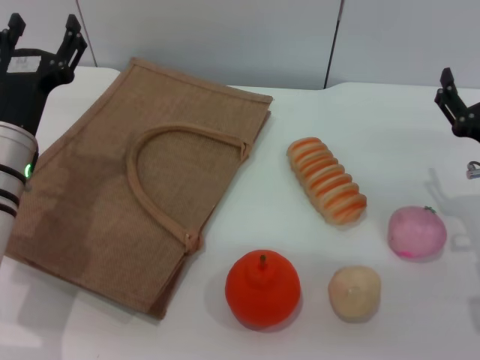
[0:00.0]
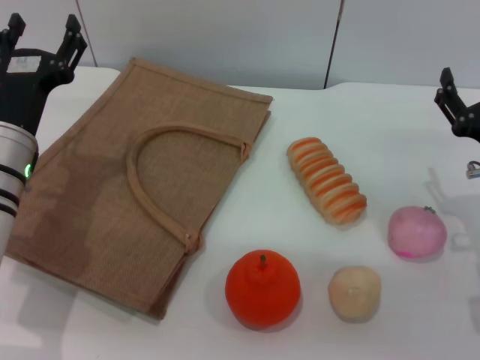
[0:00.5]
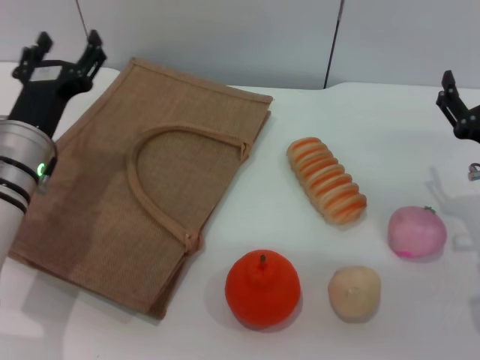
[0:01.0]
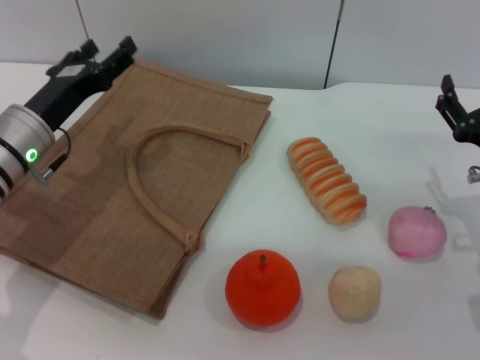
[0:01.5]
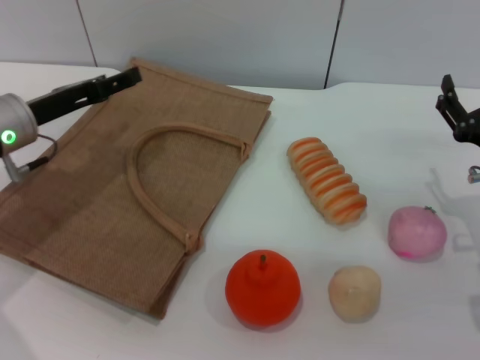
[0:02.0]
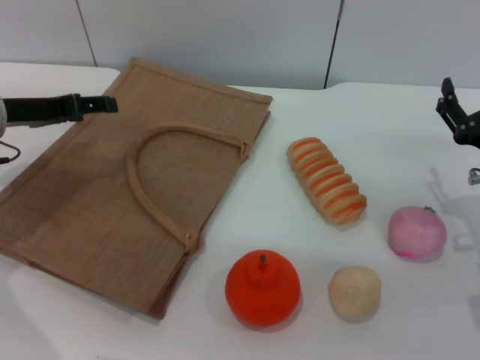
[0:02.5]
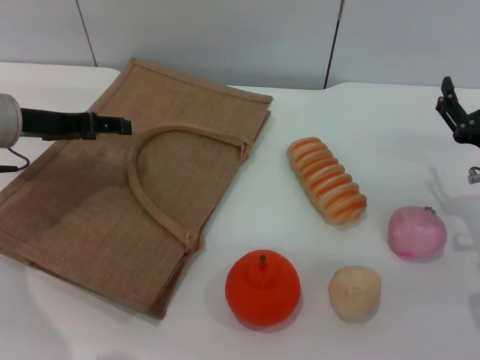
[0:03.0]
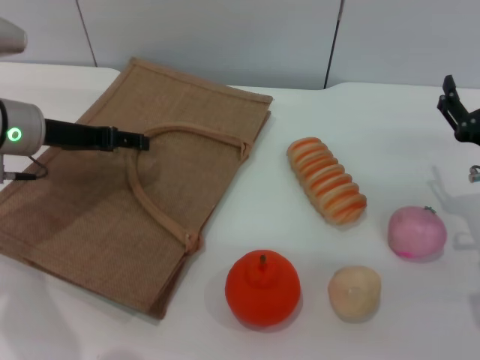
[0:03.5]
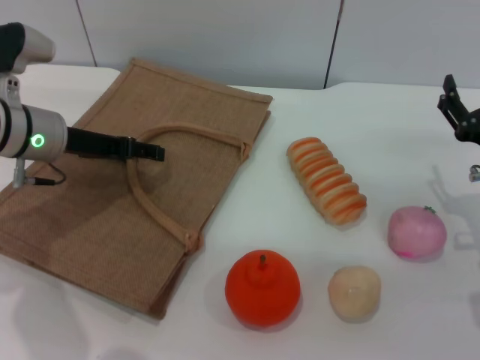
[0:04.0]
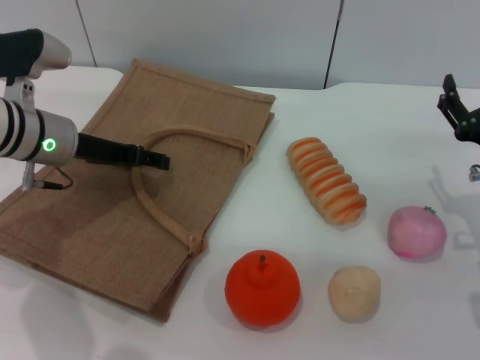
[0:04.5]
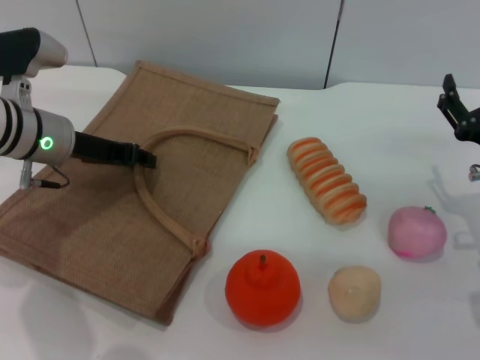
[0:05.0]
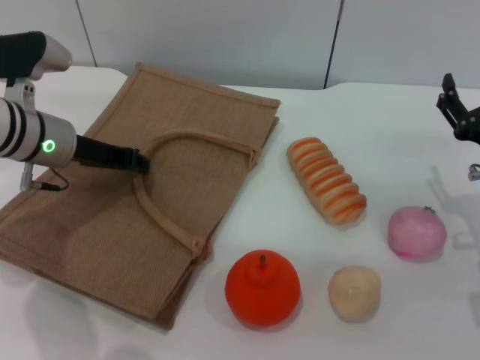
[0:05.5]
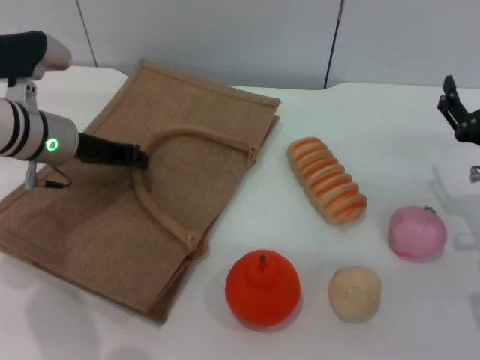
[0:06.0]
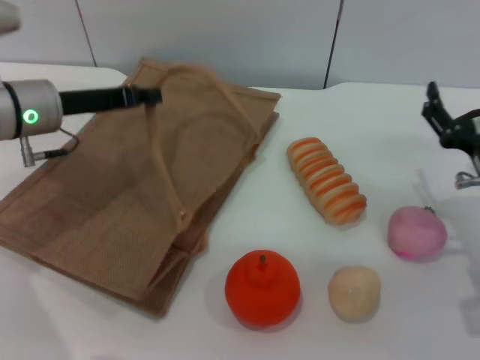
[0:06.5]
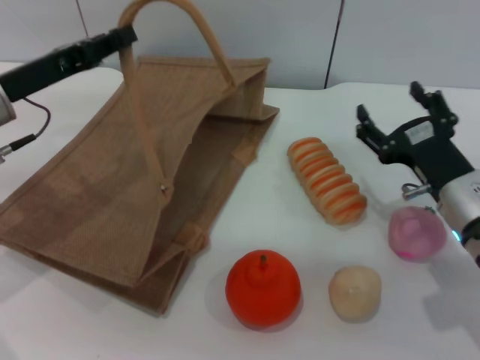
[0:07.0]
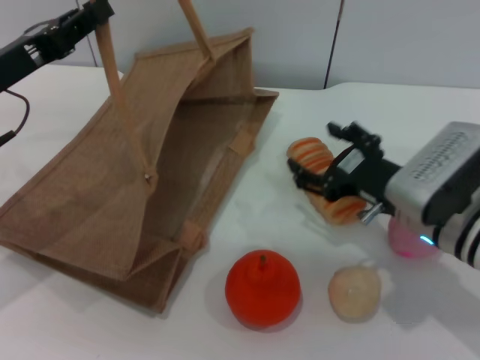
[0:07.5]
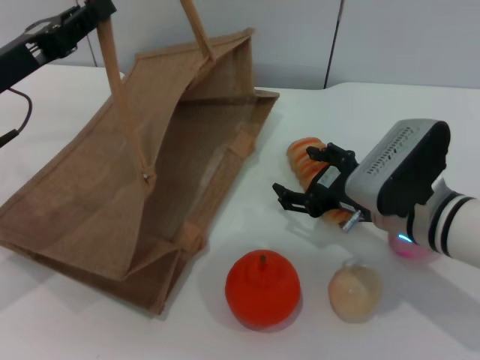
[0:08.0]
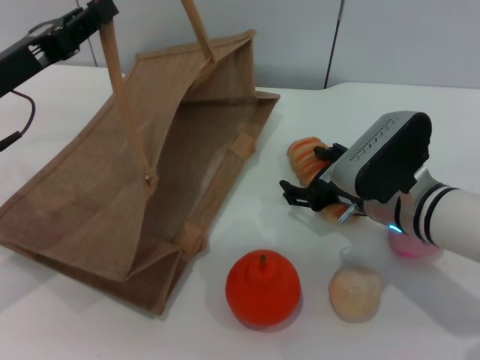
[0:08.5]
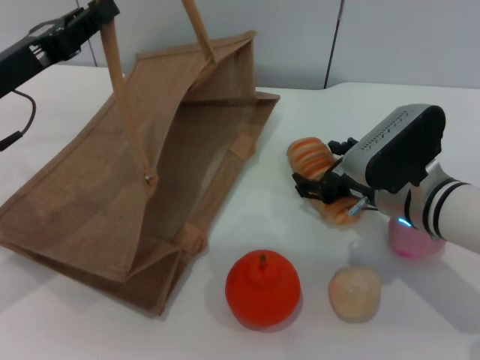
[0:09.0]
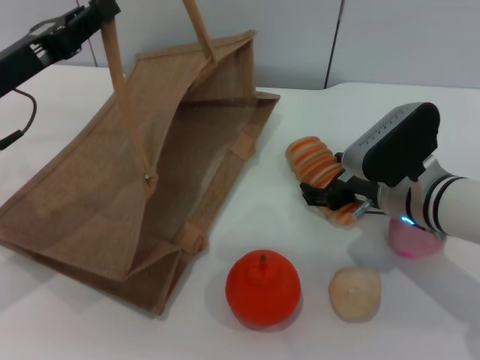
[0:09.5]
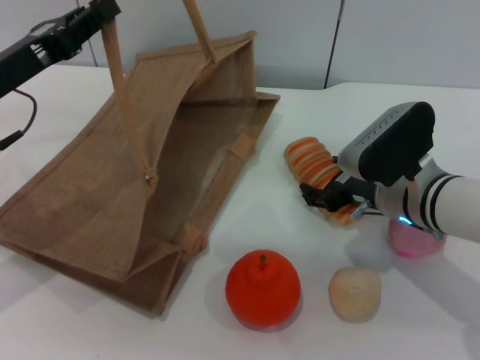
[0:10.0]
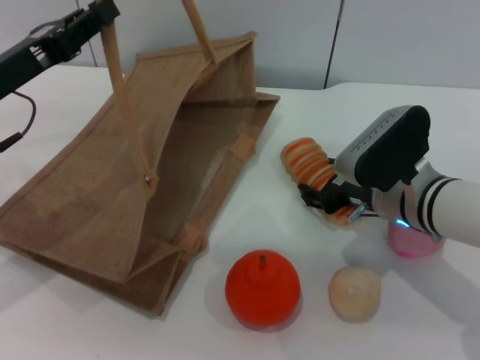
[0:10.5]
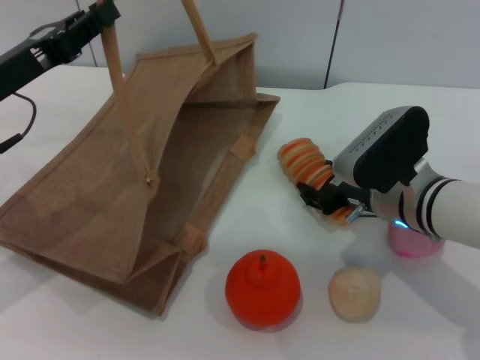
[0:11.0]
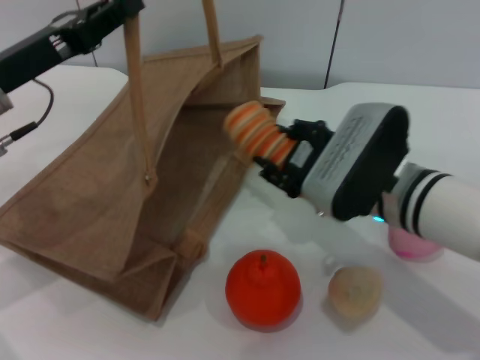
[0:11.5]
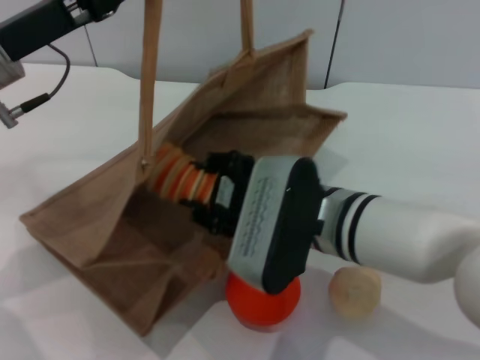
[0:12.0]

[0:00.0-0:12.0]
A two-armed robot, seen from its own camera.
Task of the whole recording: pick up the bread from the table and place it in the brown handbag.
Step, 0:00.0 to 0:06.0: Lift the woven bag with the left gripper to open it.
Step, 0:06.5 to 0:11.0: Pick up the bread with the right gripper.
0:00.0 to 0:02.0: The left gripper shifts by some 5 cm.
0:04.0 to 0:06.0: The left gripper closes its fingers.
0:06.0 to 0:08.0: The left gripper goes about 10 cm backward and upward. The right gripper is displaced to the left by some 10 cm.
0:08.0 to 0:10.0: There are only small adjustments of the grippers.
0:10.0 to 0:12.0: The left gripper shifts by approximately 5 cm. Meanwhile the right gripper travels to the left and backward by approximately 10 cm, and closes.

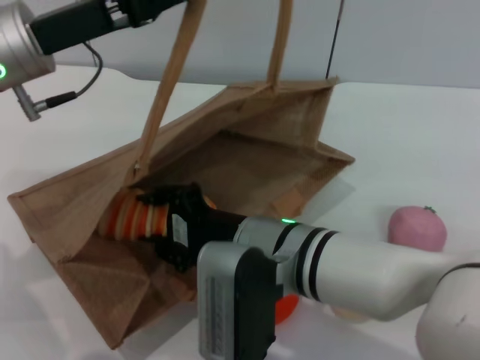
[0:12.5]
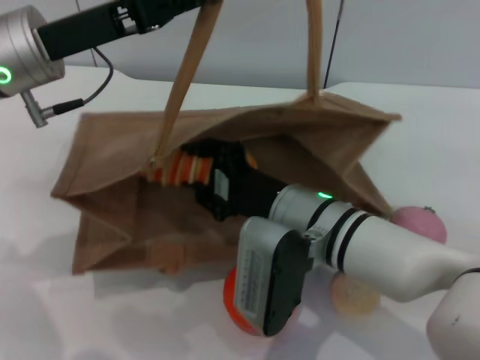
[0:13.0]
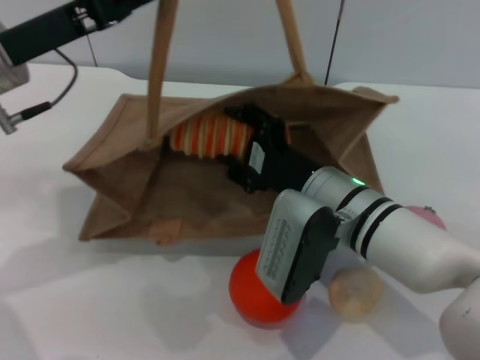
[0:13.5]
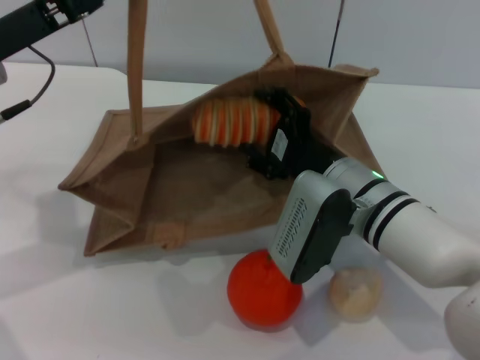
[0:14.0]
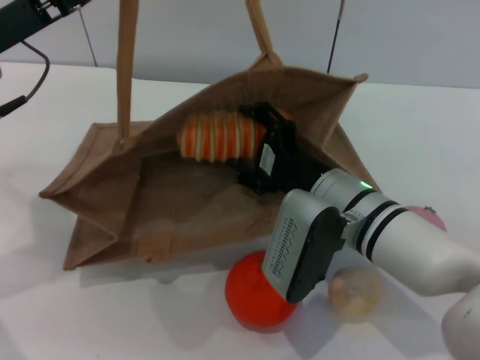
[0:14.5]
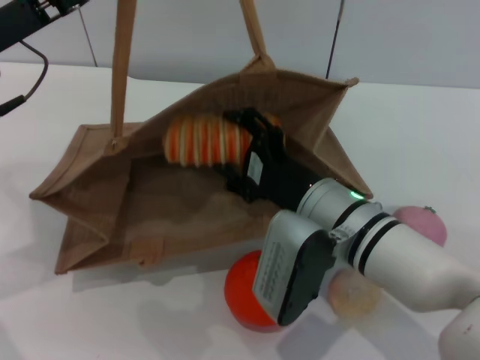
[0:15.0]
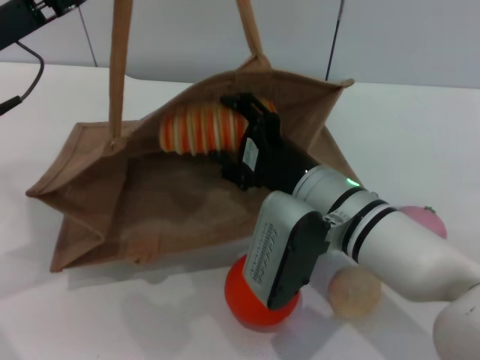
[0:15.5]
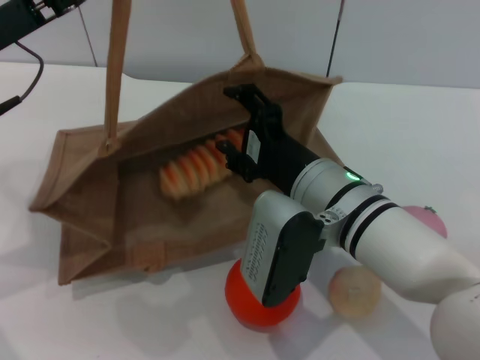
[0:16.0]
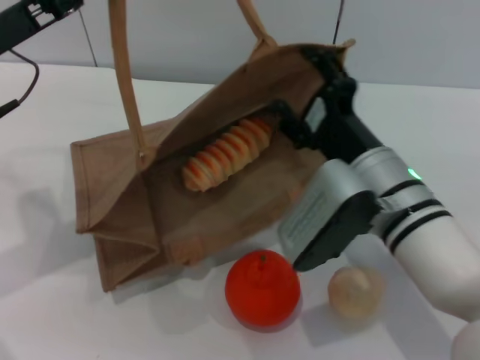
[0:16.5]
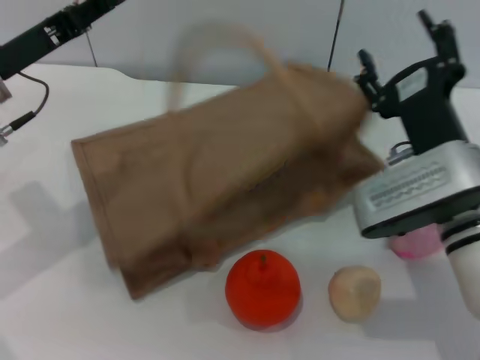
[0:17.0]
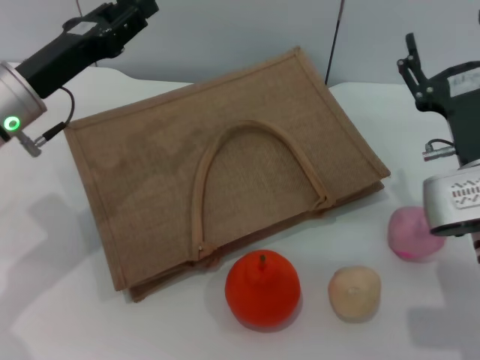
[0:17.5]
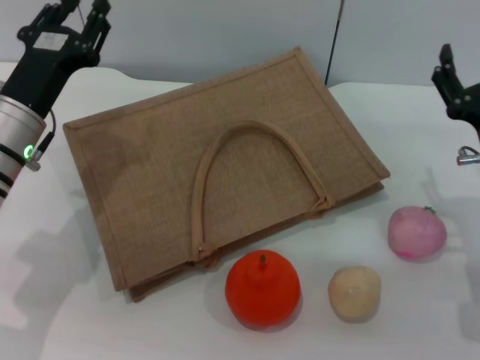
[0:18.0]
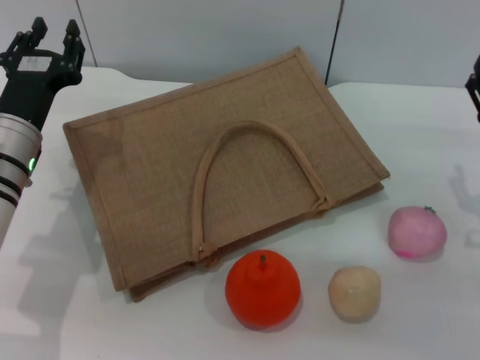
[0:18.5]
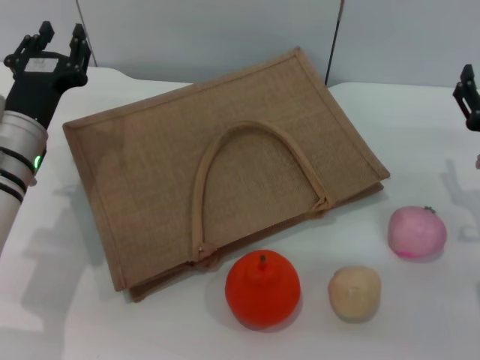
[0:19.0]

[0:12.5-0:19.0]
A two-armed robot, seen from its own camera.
Task of the whole recording: pick up the bread from the table and place it in the brown handbag.
Step, 0:12.5 to 0:16.5: Place the bread into the woven bag with the right gripper.
Step, 0:17.0 to 0:18.0: Lower the woven bag with the left gripper to close it.
0:12.5 to 0:14.5: The right gripper shifts about 10 cm to the right and forward, and opens up.
0:14.5 to 0:17.0: The right gripper moves to the right, some 5 cm.
0:17.0 to 0:19.0: The left gripper heads downward, covering roughly 10 cm, and opens its fingers. The right gripper moves to the right, roughly 10 cm.

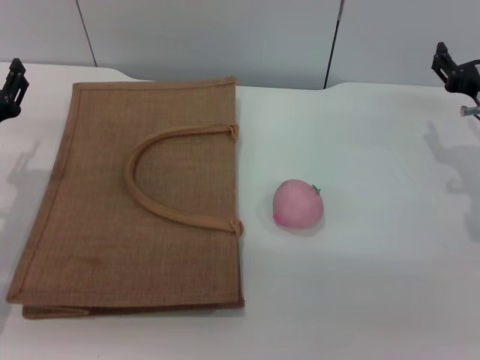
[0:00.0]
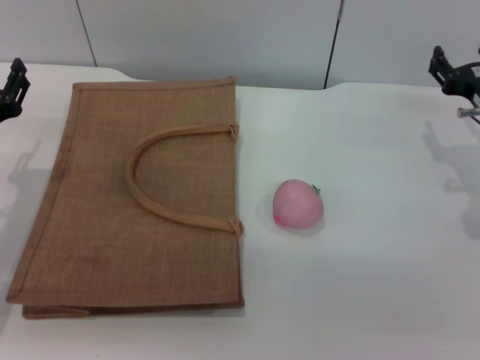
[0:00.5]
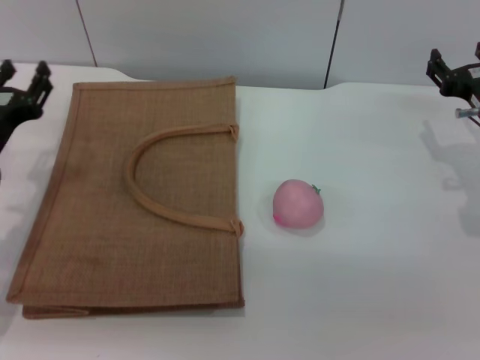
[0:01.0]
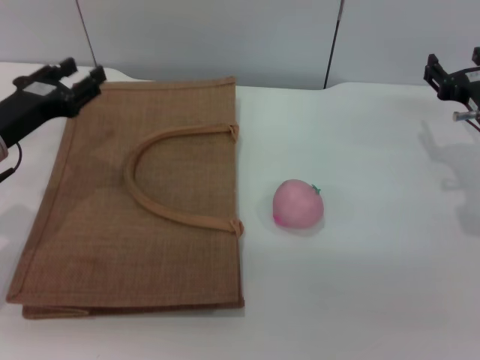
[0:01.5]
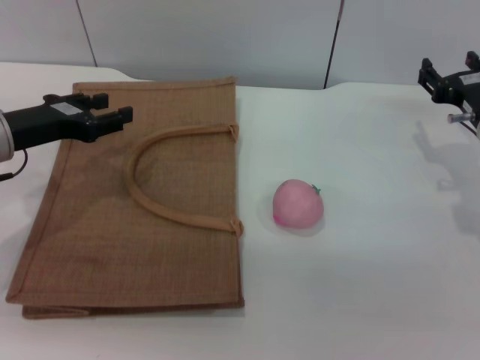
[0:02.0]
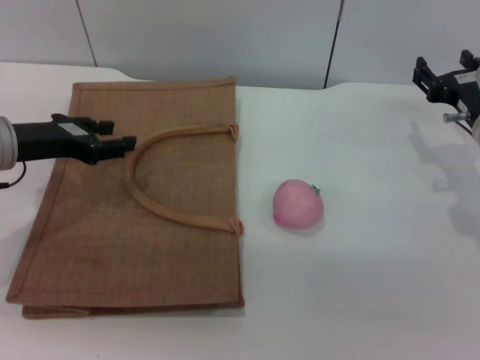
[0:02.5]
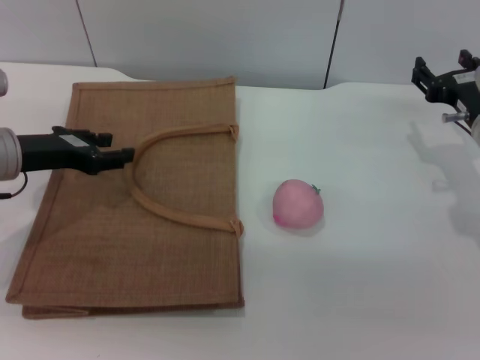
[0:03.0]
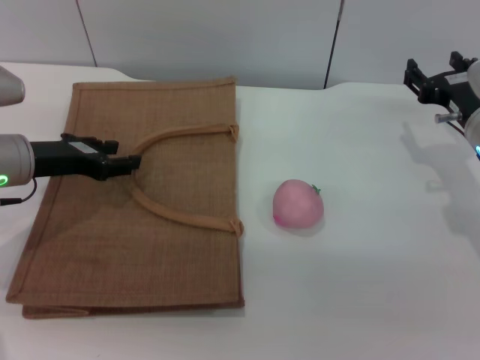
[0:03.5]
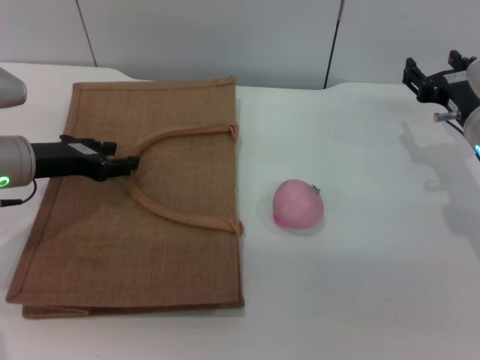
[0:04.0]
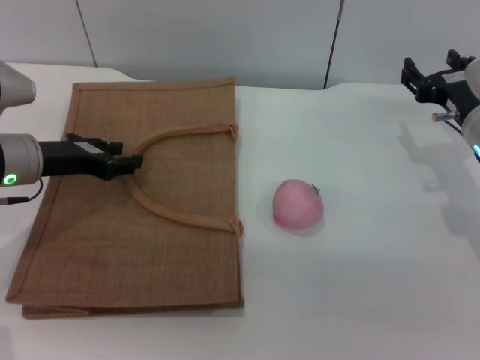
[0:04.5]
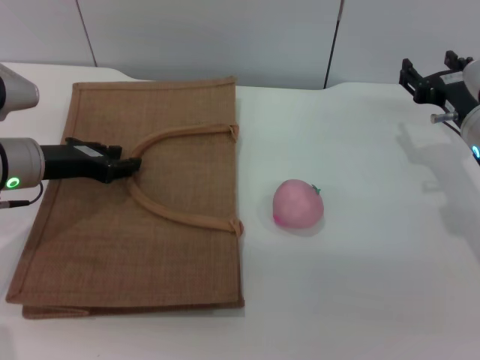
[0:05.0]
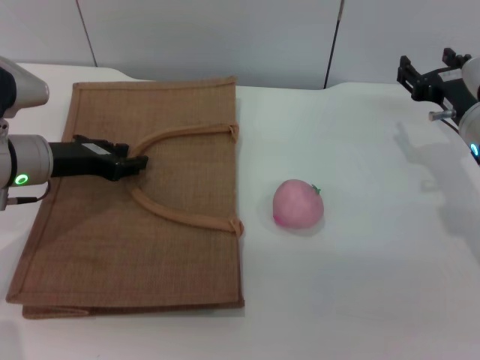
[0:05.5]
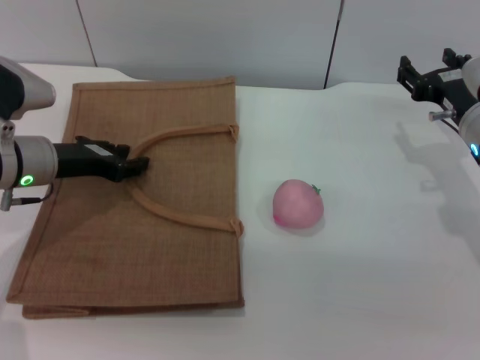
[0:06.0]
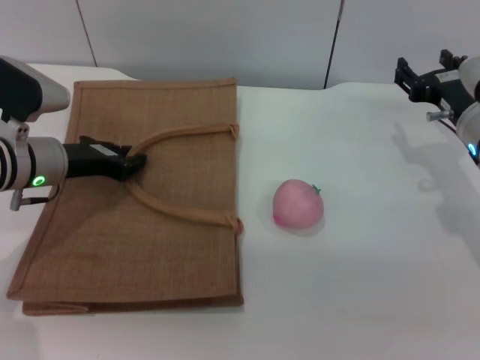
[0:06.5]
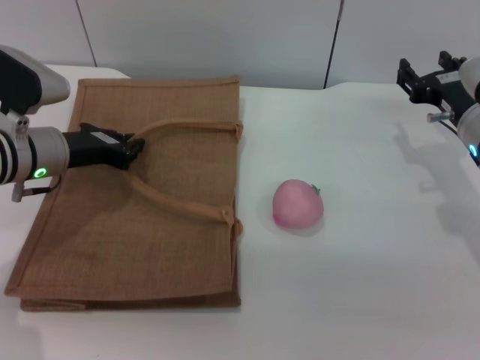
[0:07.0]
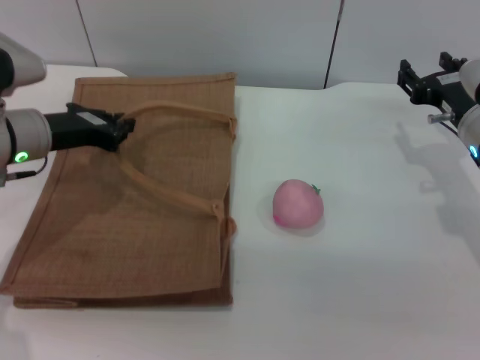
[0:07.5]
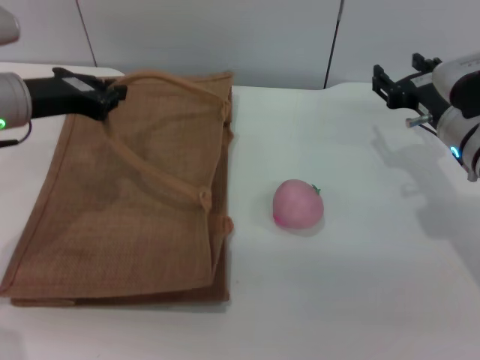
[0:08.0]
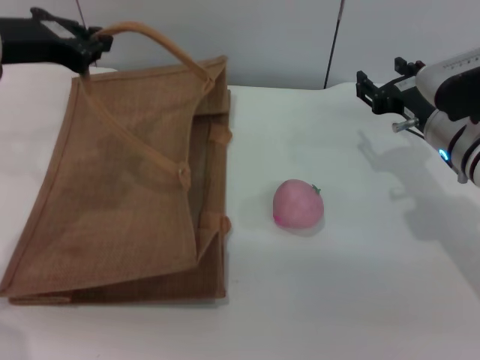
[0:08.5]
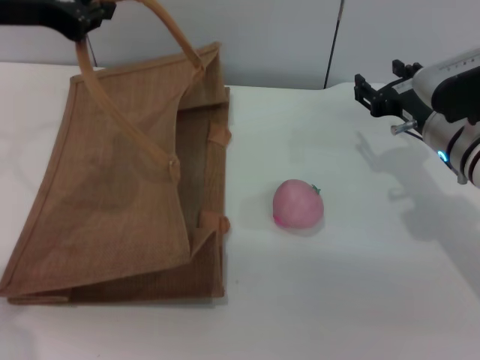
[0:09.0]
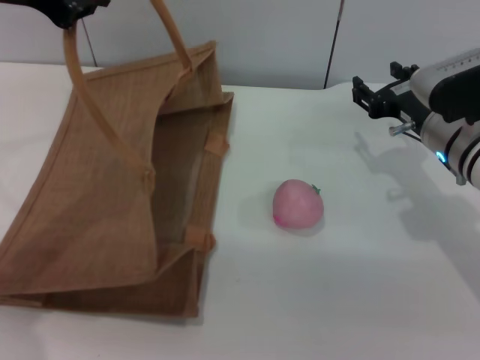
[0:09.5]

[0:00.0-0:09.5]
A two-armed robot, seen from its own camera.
Task of the whole recording: pick up the peach from the table and place it in the brown handbag.
0:00.0 to 0:02.0: The left gripper moves upward, about 5 cm.
0:02.0 to 0:05.5: There are only small adjustments of the grippers.
0:05.5 to 0:07.5: The left gripper closes.
0:07.5 to 0:09.5: The left gripper moves upward, approximately 20 cm.
